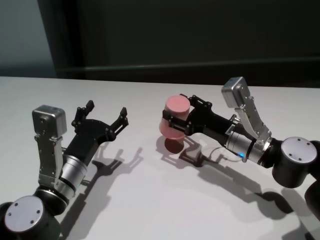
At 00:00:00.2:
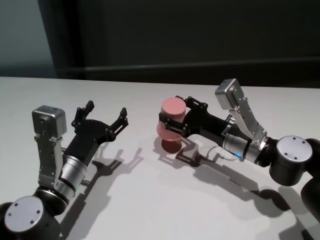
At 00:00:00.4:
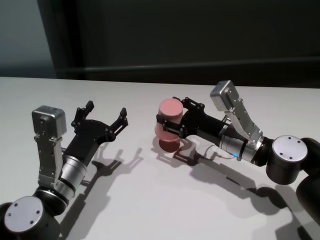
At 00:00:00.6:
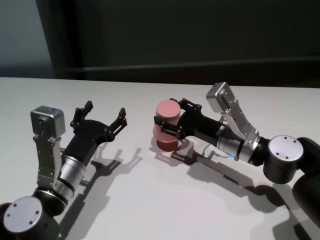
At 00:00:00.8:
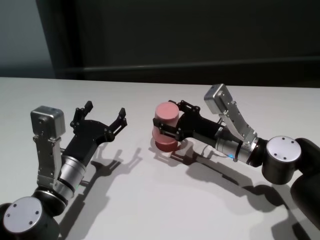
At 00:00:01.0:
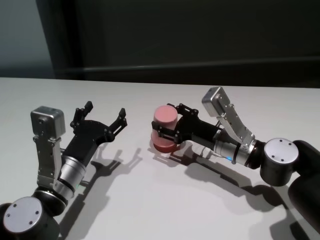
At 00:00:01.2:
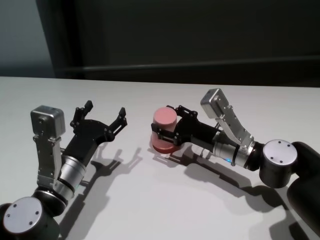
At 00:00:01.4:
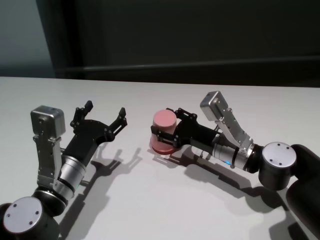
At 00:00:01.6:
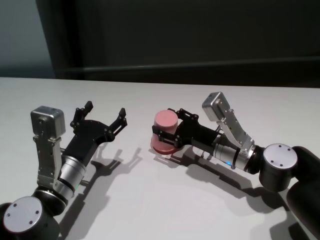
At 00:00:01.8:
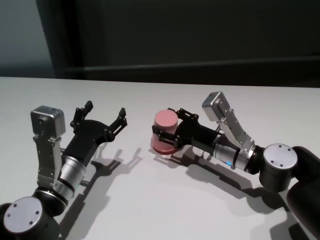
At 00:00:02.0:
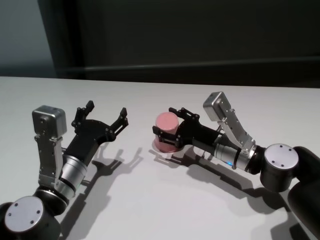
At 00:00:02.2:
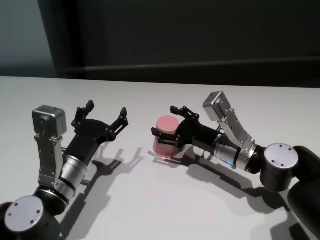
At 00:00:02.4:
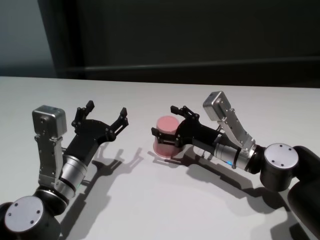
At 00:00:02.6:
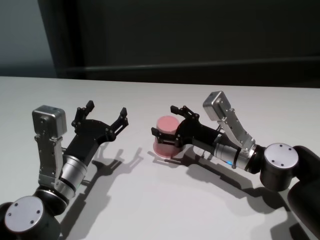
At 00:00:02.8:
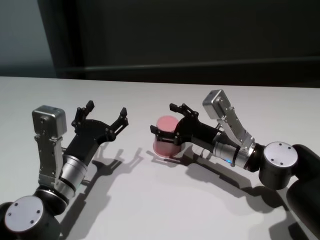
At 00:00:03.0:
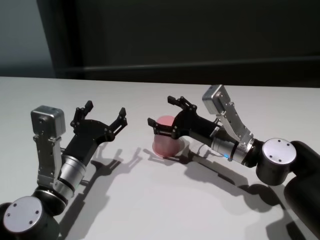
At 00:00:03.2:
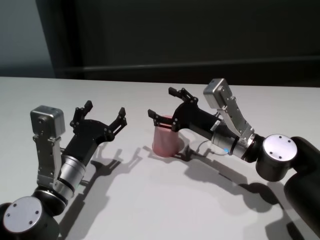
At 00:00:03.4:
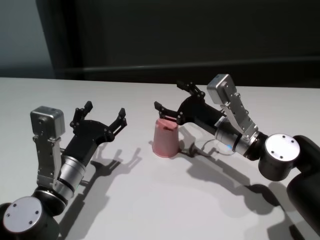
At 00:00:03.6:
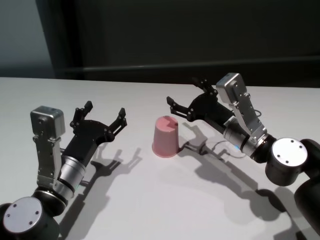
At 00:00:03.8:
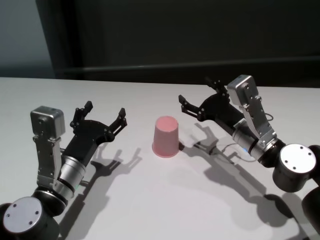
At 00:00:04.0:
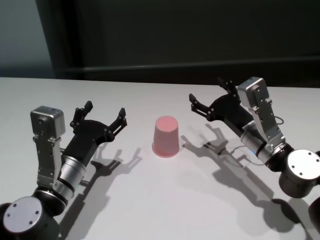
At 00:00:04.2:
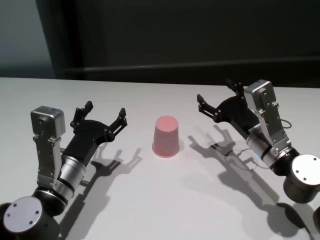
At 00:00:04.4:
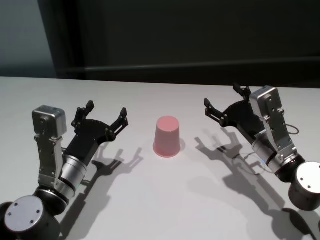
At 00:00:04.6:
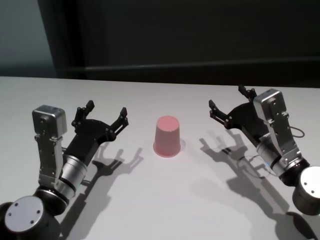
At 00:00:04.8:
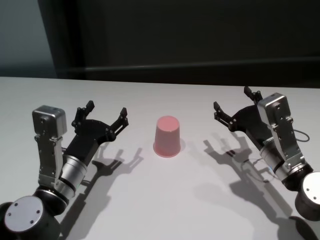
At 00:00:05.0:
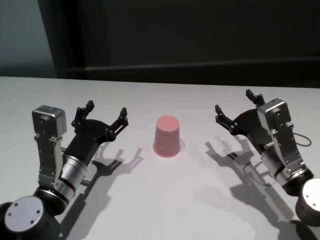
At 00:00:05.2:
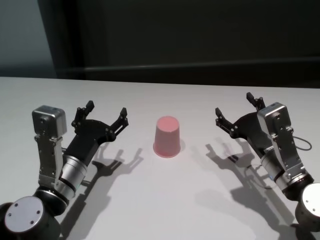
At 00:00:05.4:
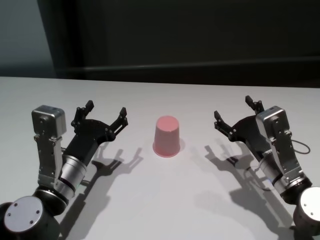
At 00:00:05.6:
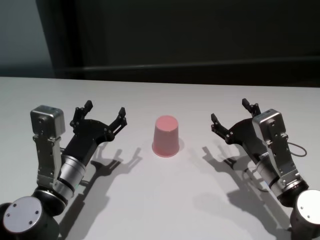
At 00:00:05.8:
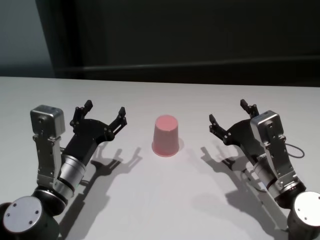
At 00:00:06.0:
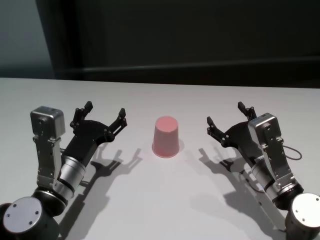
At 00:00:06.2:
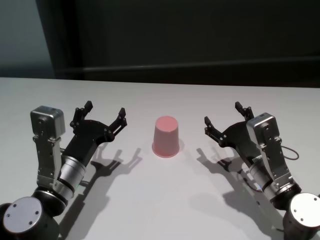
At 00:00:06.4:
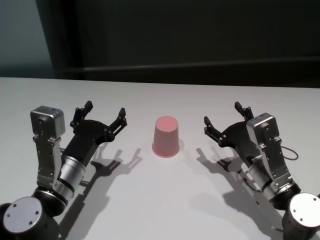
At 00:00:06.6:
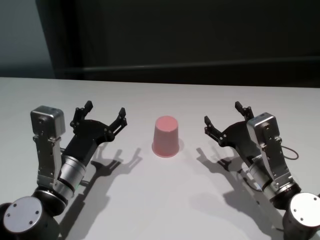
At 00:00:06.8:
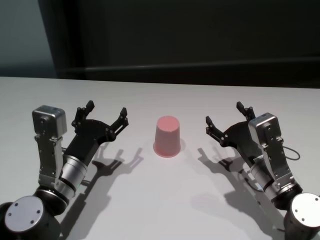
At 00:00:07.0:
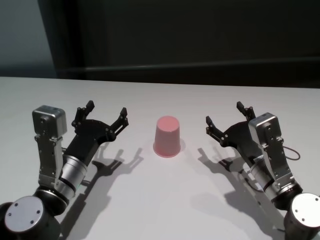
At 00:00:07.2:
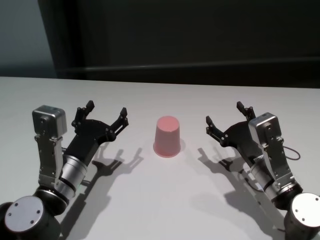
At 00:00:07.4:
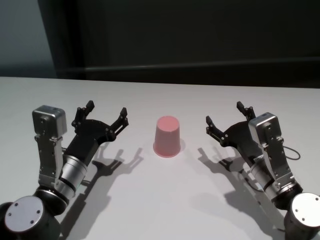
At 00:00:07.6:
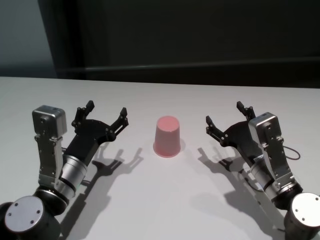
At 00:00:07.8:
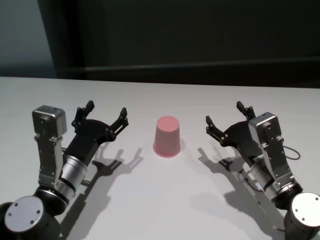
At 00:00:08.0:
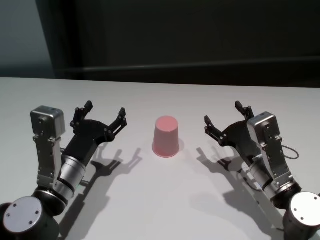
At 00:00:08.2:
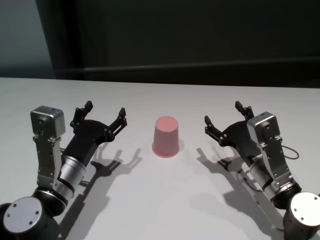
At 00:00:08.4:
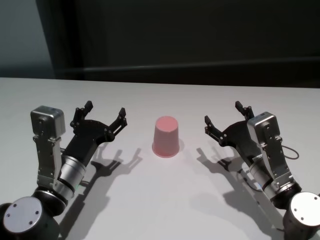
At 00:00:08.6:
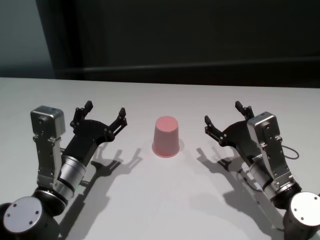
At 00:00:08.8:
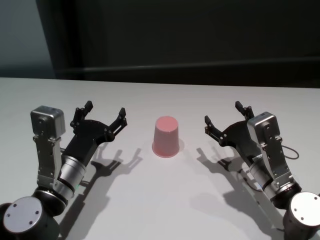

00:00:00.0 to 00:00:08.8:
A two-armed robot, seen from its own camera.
Task of the whole recording: On the white table pick up the cup with one hand and transfer it to the other hand before turning it over.
Step, 00:00:00.0 to 00:00:03.0: Place the cup on the table with right gripper.
